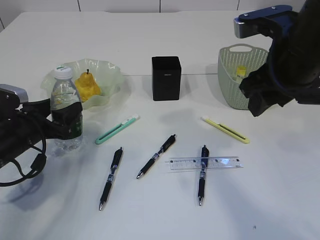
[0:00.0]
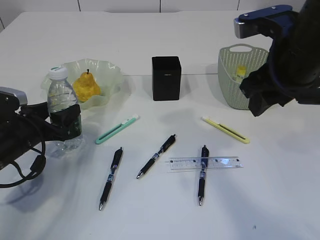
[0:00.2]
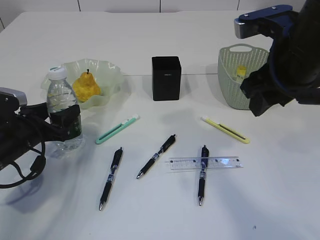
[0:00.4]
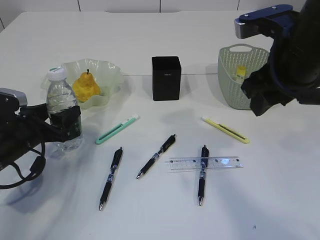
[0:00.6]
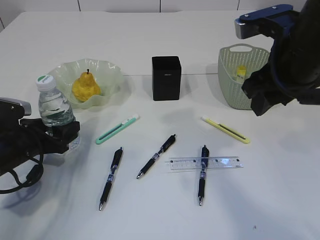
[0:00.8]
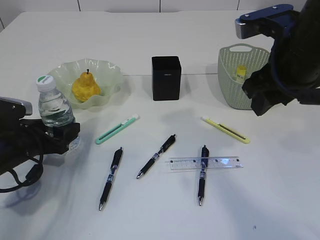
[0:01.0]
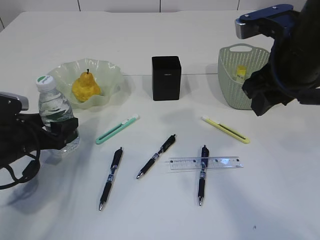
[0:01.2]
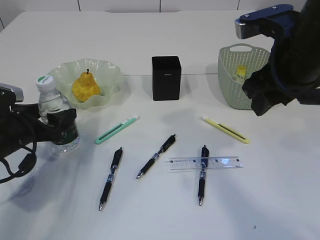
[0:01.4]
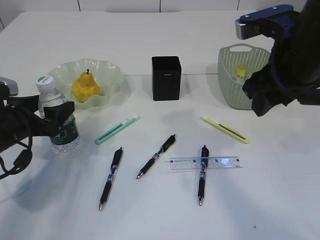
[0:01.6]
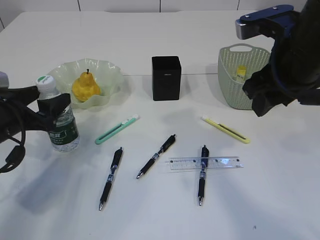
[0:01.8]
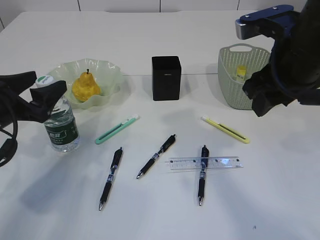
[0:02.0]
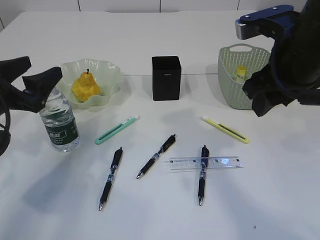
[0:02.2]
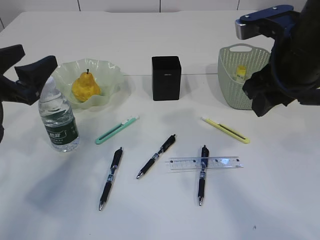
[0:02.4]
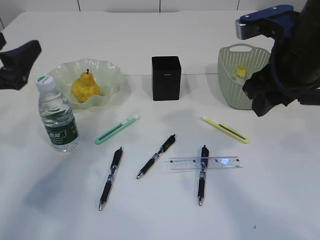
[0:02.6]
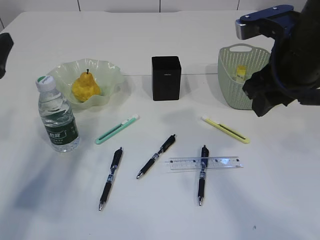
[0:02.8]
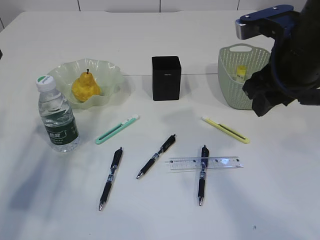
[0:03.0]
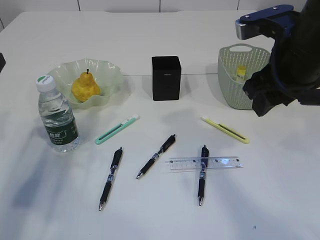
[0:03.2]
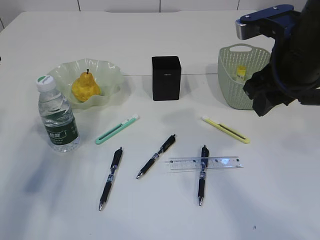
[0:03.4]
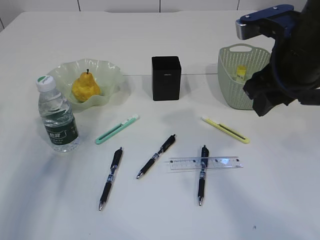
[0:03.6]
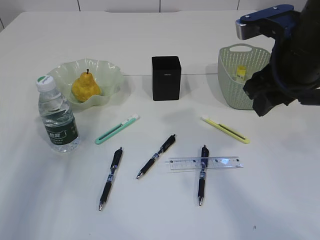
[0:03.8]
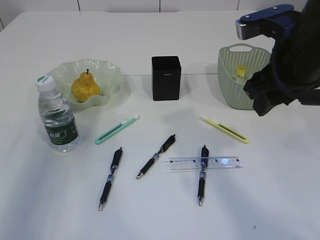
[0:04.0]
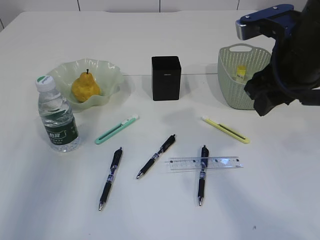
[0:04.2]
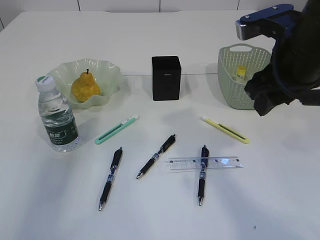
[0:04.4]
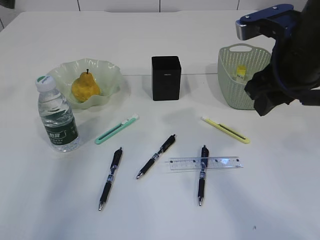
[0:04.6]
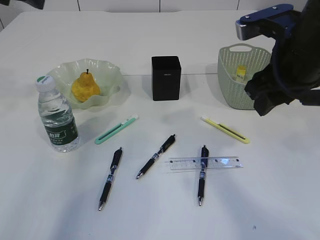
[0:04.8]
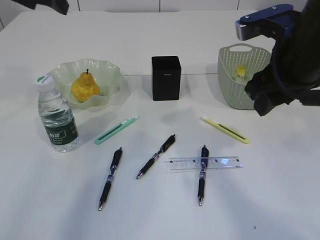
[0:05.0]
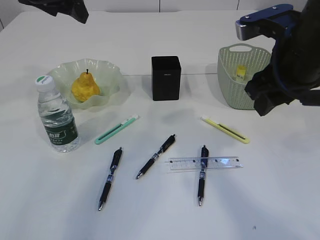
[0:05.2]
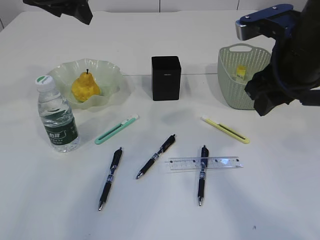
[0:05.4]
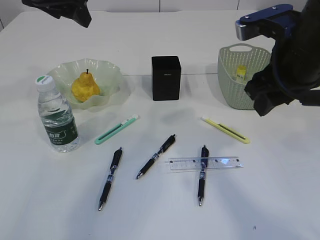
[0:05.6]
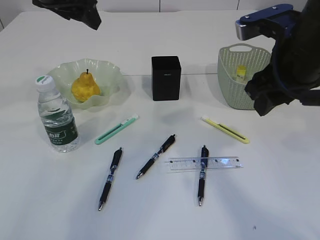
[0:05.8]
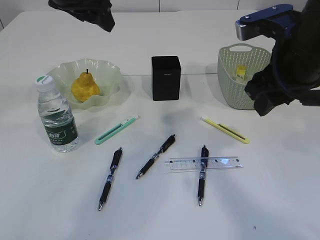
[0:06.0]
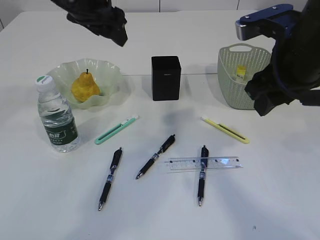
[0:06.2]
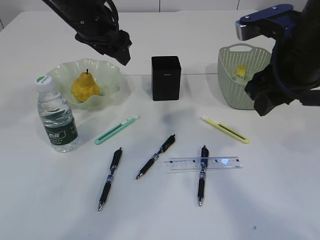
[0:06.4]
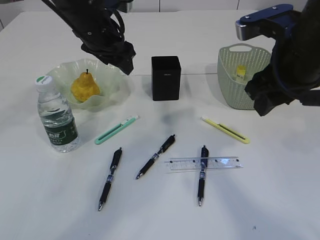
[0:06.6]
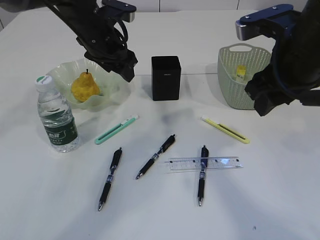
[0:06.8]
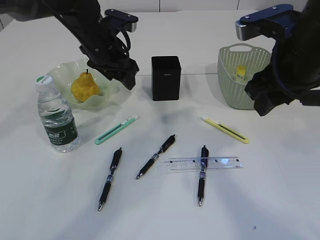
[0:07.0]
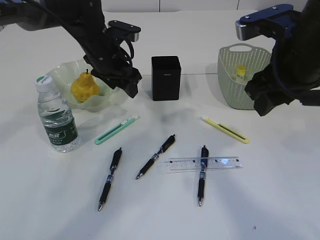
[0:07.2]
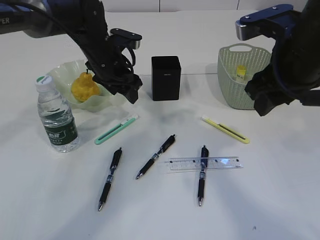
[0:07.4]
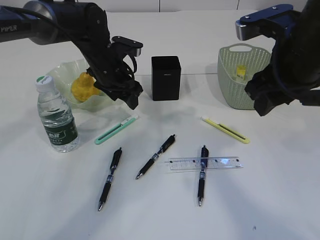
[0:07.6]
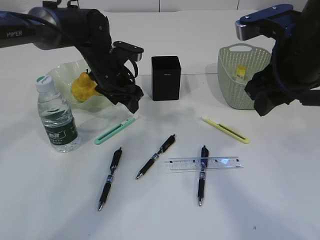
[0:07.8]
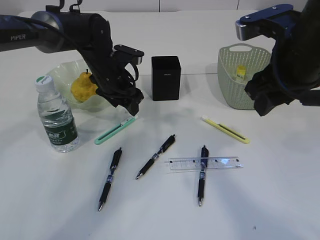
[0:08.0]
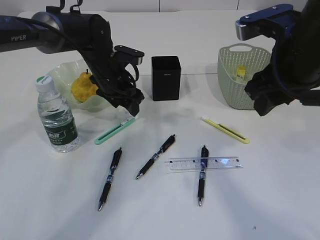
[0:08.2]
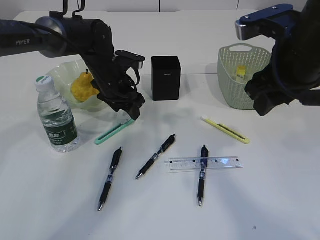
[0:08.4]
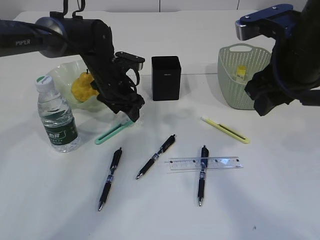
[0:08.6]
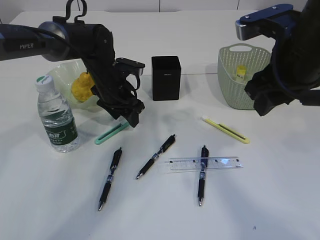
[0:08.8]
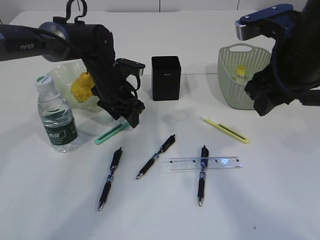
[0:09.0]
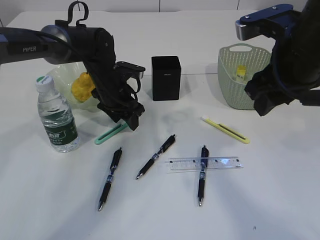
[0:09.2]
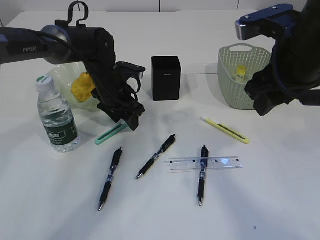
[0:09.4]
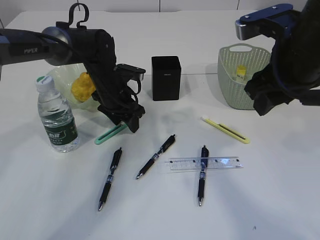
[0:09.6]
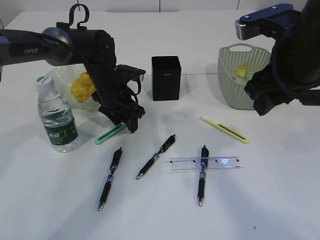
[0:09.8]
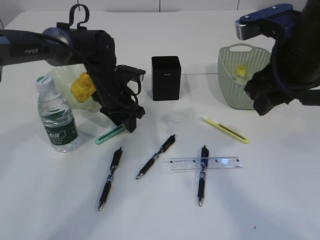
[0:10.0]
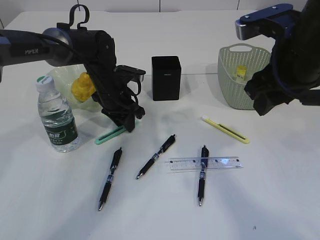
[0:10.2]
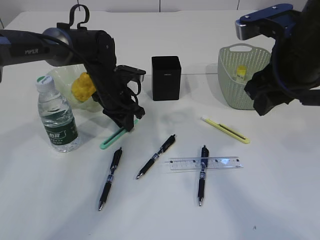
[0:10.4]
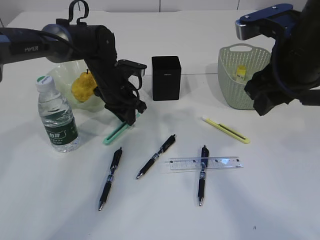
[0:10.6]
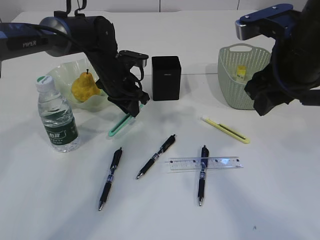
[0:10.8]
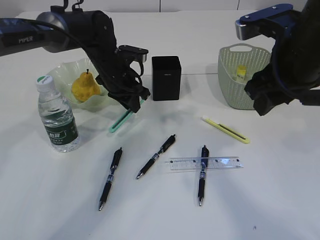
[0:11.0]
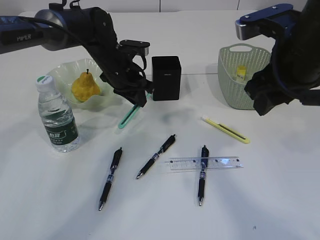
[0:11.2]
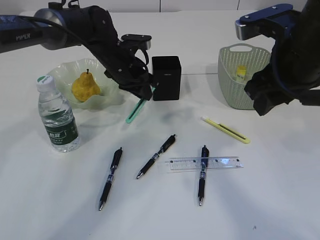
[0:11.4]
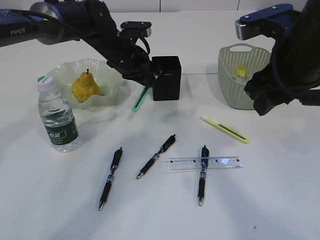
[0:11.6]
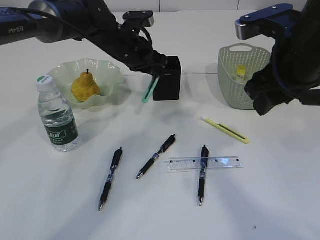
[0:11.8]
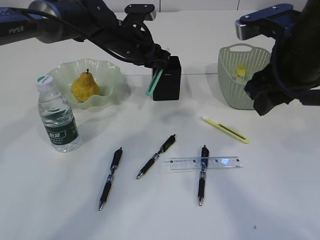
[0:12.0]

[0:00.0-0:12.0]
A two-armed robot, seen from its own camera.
Step, 0:00.0 to 0:02.6: Place the bottle.
Step, 0:02.8 to 0:11.0: pick up the blue knife.
0:00.0 to 0:01.6: The grippers move only a little.
0:01.6 to 0:03.0: The left gripper goes some 10 cm upward and to the left.
0:03.0 to 0:04.4: The left gripper heads upward, covering about 15 cm.
0:04.4 to 0:06.0: The left gripper shifts roughly 15 cm to the right.
0:06.0 to 0:07.6: The left gripper goes some 15 cm downward.
0:07.6 to 0:09.0: There are only small adjustments of the grippers.
0:09.0 to 0:10.4: The left gripper closes.
0:10.4 to 0:12.0: The left gripper is displaced upward by about 10 cm.

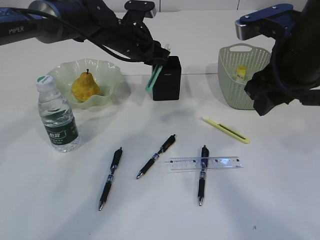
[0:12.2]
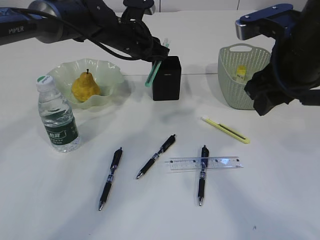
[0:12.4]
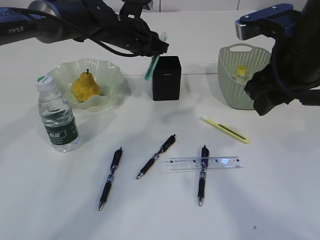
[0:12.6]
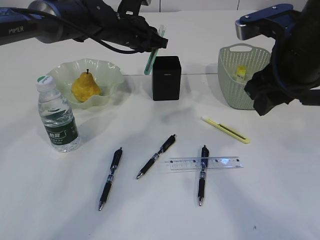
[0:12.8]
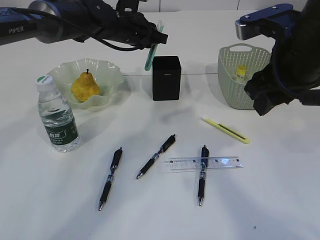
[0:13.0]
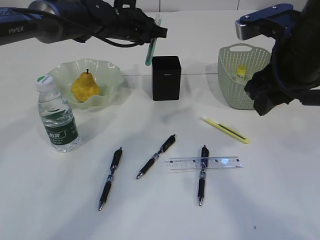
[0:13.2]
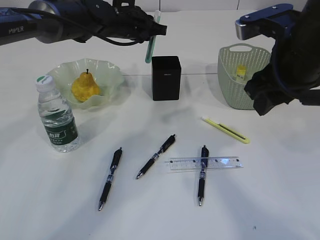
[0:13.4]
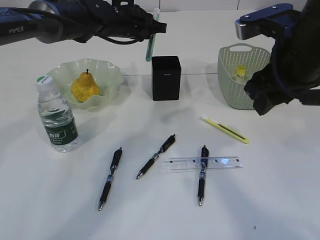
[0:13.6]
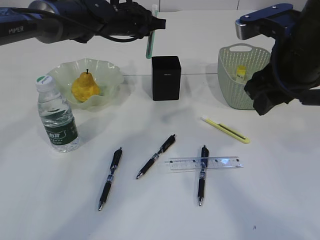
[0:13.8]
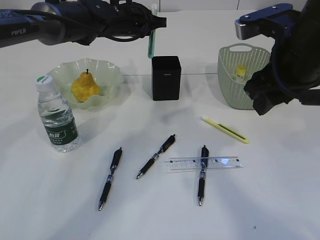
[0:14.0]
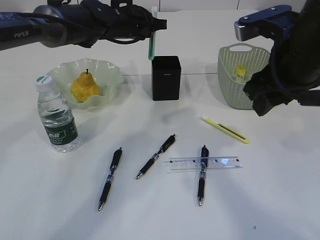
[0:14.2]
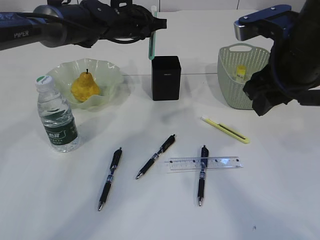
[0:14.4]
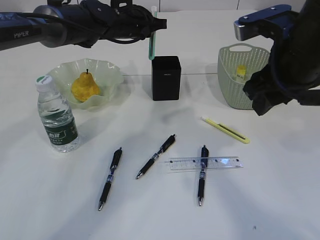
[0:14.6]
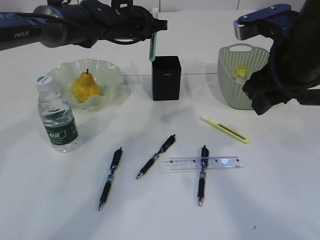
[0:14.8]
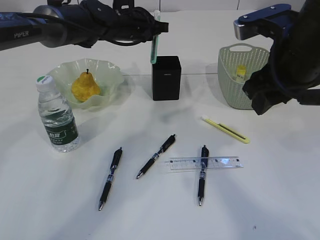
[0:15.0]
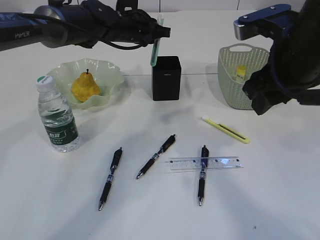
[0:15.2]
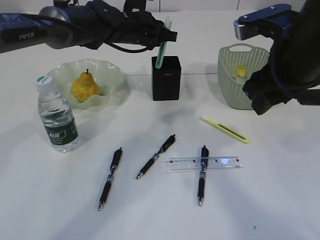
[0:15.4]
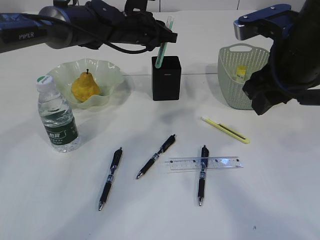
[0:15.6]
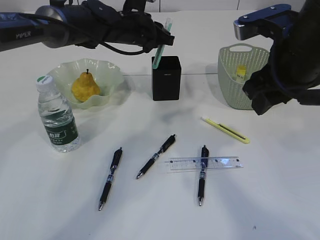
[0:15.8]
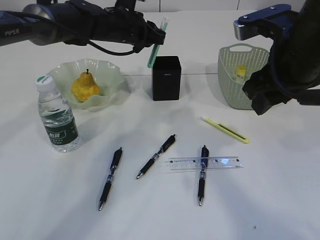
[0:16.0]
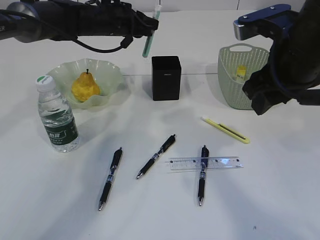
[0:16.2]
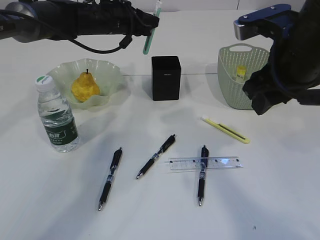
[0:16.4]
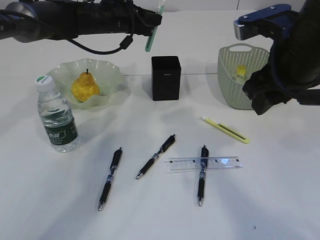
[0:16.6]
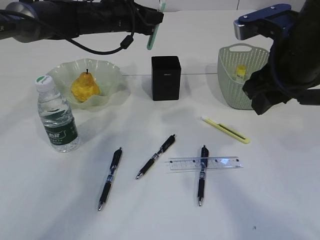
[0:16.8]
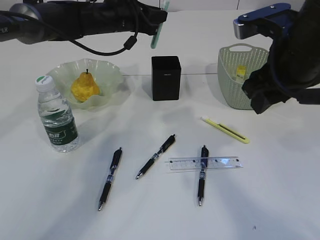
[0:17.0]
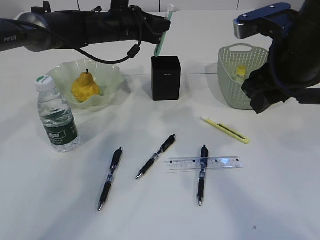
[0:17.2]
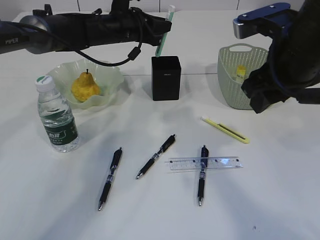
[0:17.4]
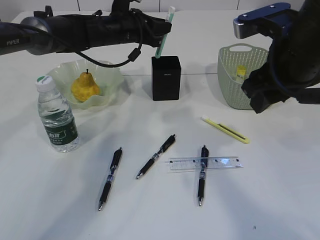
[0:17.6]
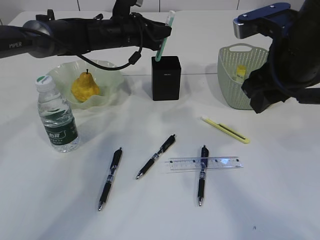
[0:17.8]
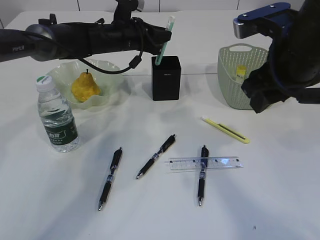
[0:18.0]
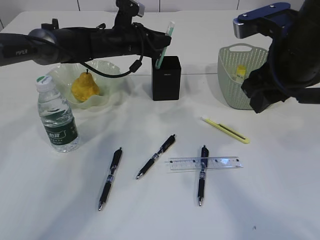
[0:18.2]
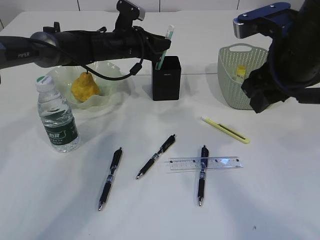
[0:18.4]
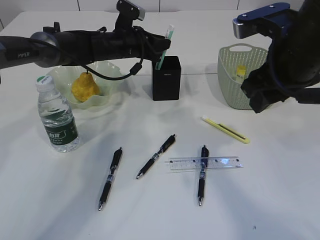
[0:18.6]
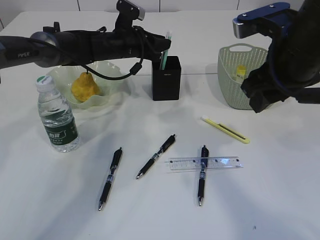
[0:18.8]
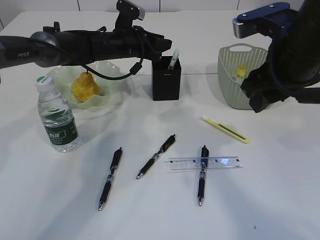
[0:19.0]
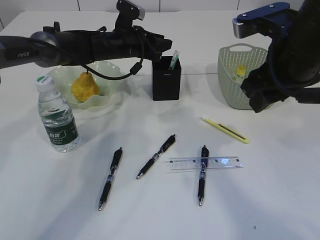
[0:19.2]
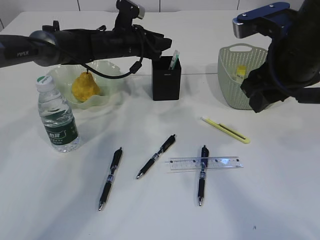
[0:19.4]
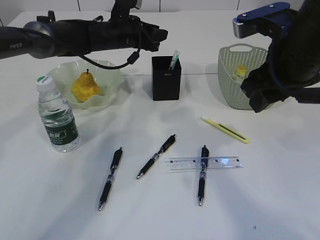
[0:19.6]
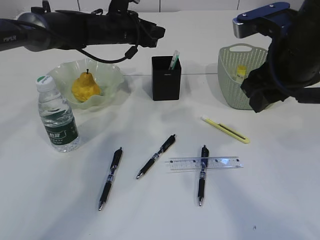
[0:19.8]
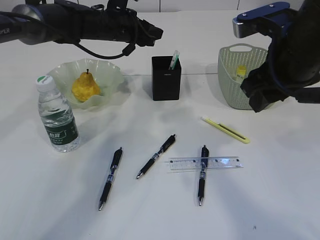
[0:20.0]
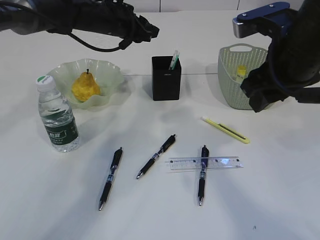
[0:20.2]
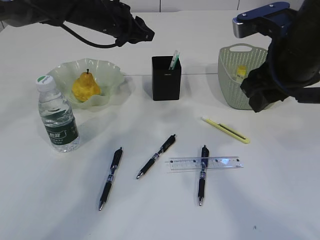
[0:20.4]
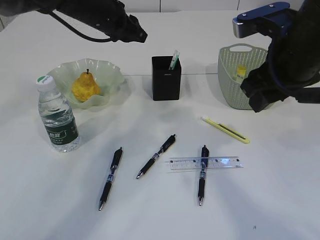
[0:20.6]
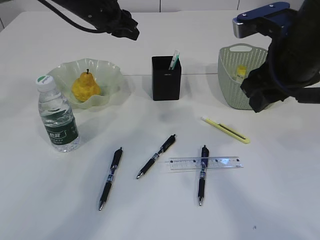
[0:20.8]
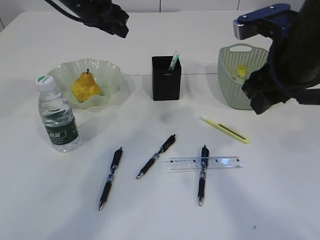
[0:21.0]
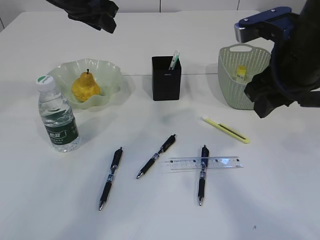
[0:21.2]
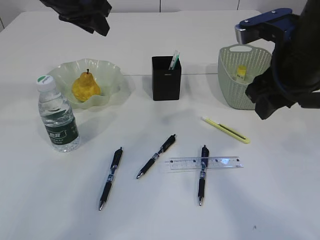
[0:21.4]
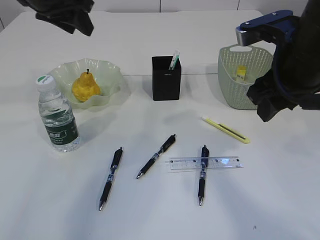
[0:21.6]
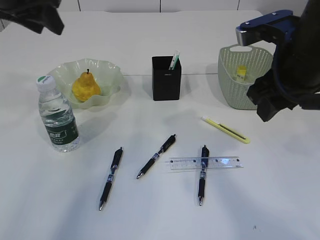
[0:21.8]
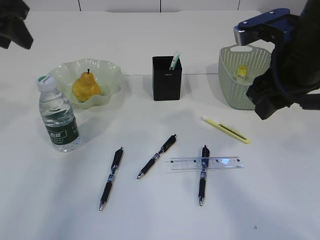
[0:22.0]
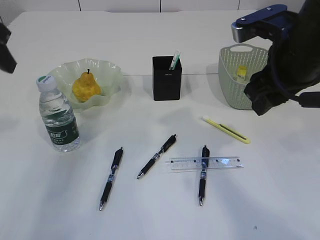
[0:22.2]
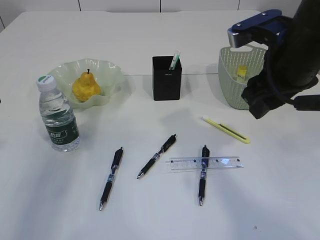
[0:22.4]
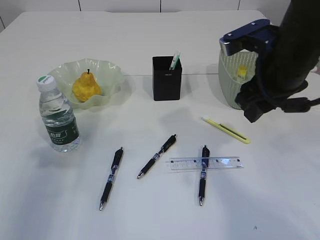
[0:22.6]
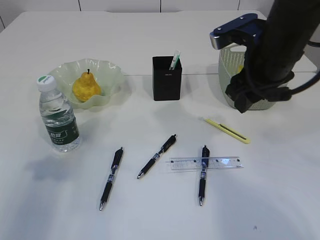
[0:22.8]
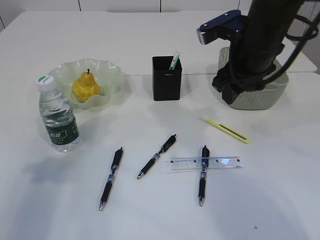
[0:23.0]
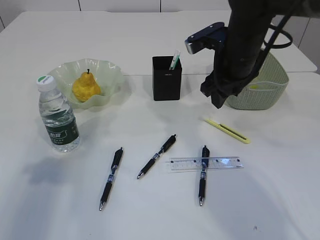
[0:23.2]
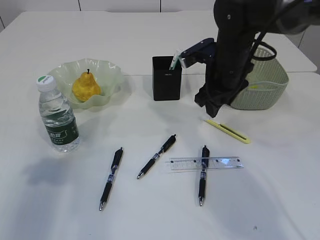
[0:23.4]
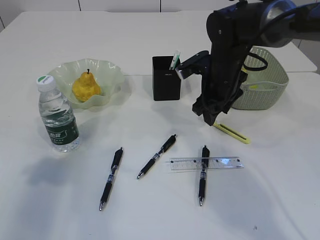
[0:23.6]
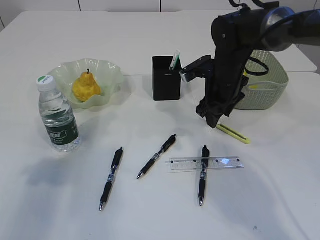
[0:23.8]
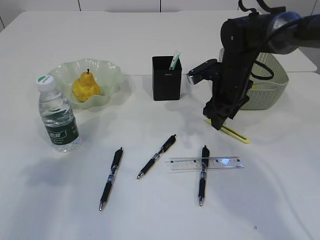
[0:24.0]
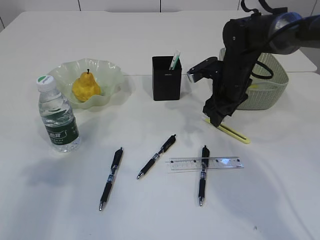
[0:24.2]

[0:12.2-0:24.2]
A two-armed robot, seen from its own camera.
Step, 0:12.2 to 0:20.2: Place the blue knife into the pen holder.
0:13.8 to 0:15.2: Both grippers stay about where they are.
0:16.6 to 0:18.2: The left gripper travels downward by roughly 5 cm.
0:18.2 to 0:19.8: The grippers move only a little.
0:19.8 to 0:21.2: The left gripper is displaced upward, backward and to the left by approximately 15 cm.
0:21.2 to 0:22.6: The left gripper moves backward and to the left, approximately 25 cm.
0:22.6 to 0:24.2: The right gripper moves forward and downward, roughly 20 cm.
